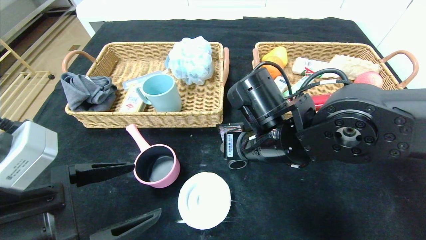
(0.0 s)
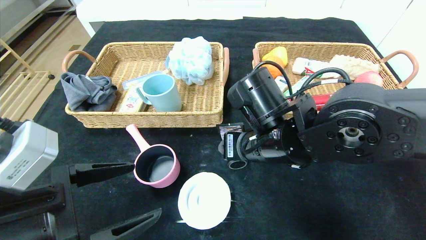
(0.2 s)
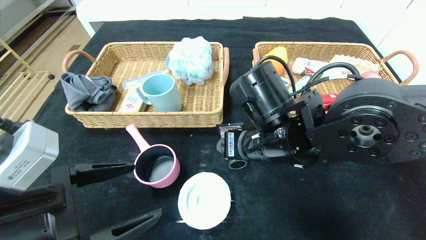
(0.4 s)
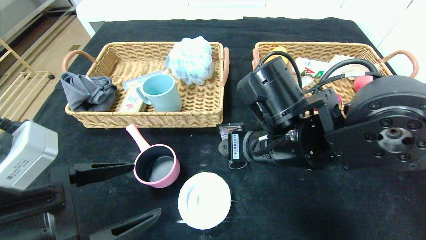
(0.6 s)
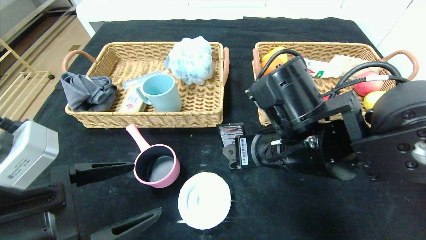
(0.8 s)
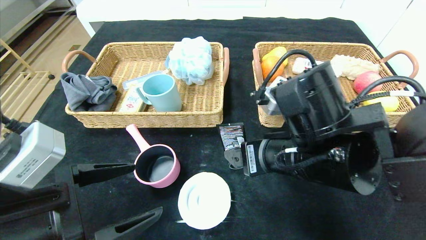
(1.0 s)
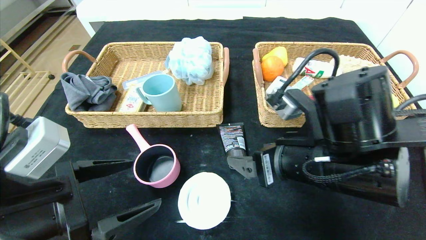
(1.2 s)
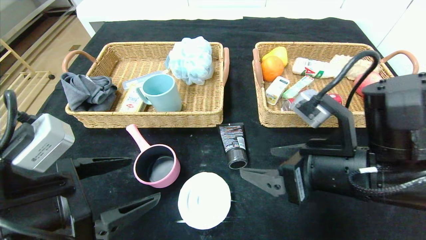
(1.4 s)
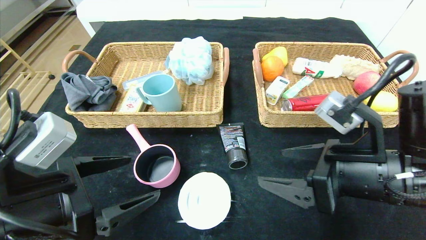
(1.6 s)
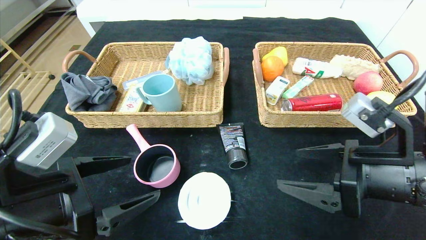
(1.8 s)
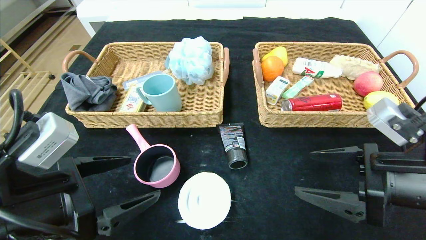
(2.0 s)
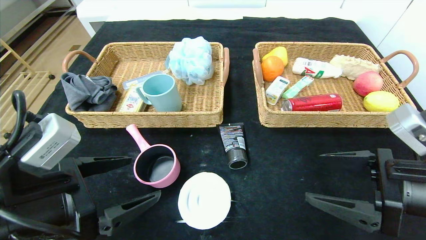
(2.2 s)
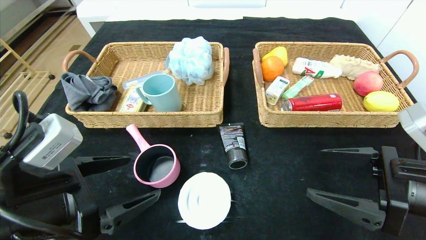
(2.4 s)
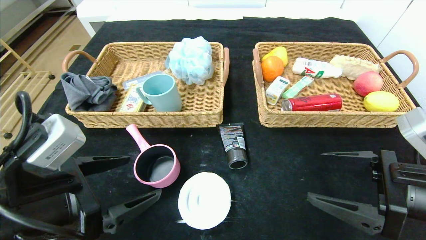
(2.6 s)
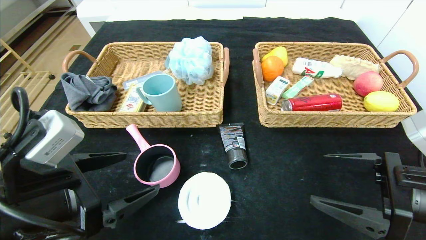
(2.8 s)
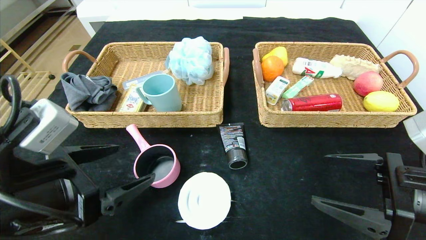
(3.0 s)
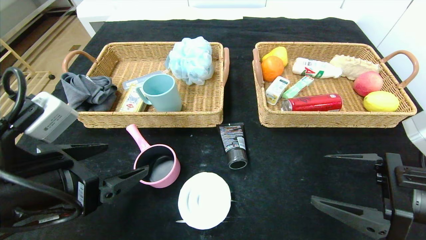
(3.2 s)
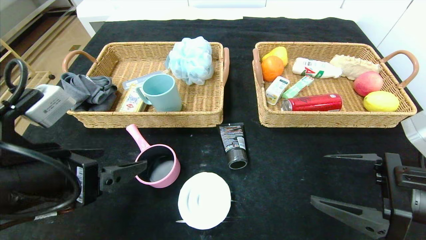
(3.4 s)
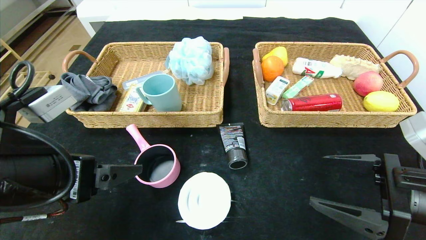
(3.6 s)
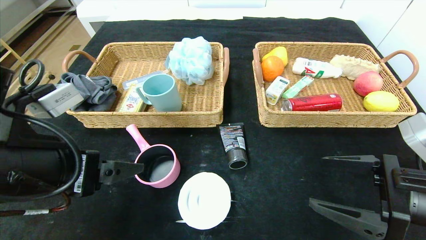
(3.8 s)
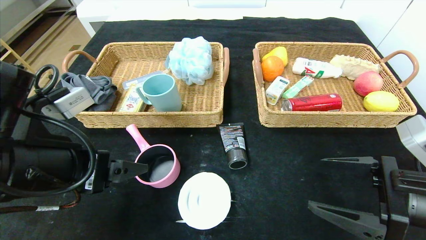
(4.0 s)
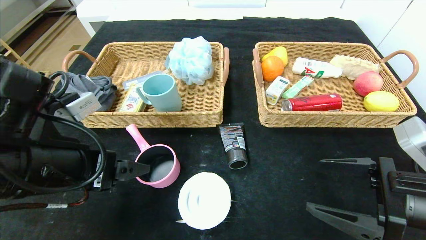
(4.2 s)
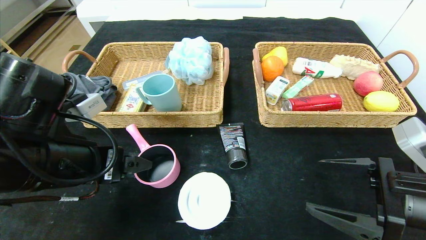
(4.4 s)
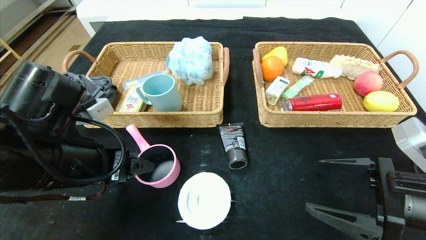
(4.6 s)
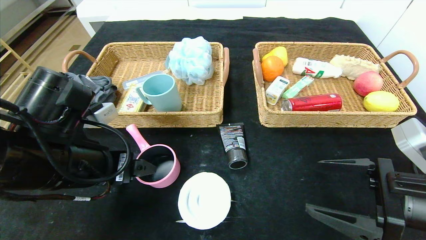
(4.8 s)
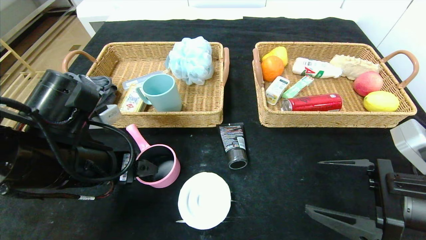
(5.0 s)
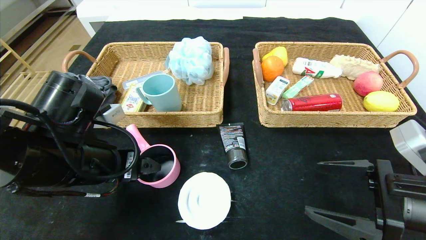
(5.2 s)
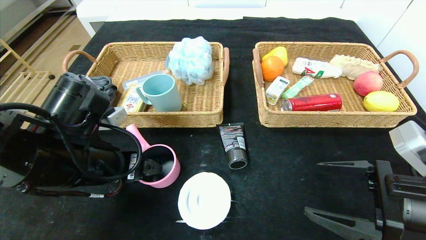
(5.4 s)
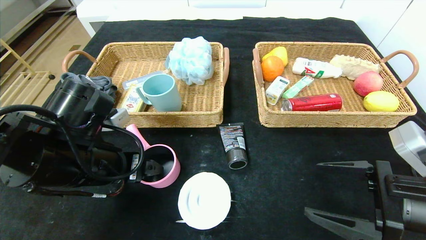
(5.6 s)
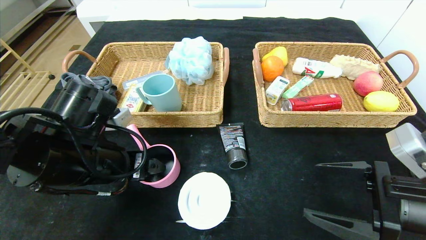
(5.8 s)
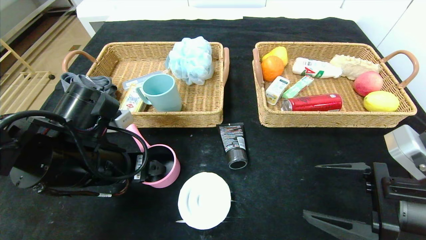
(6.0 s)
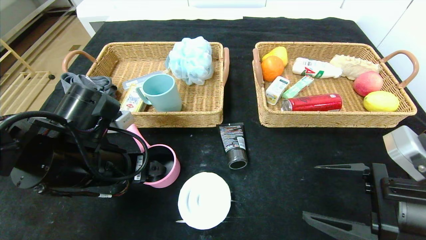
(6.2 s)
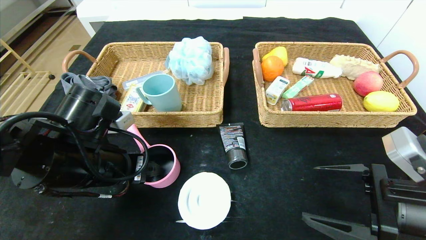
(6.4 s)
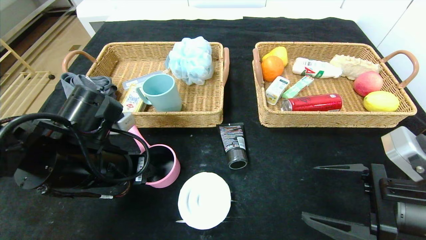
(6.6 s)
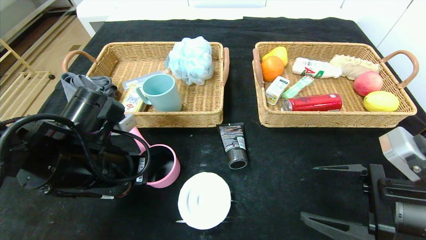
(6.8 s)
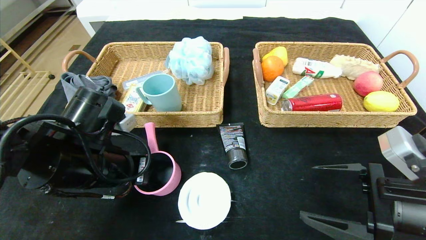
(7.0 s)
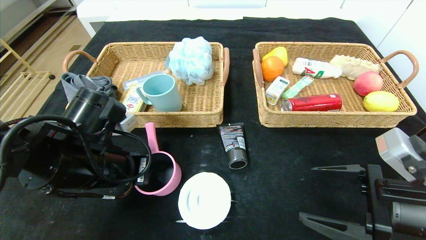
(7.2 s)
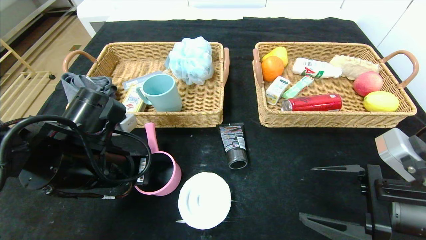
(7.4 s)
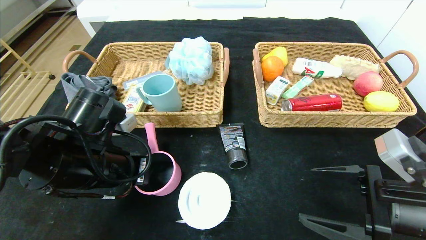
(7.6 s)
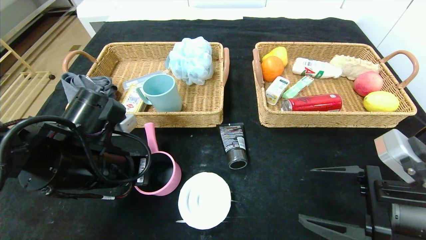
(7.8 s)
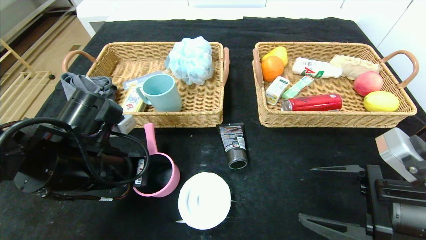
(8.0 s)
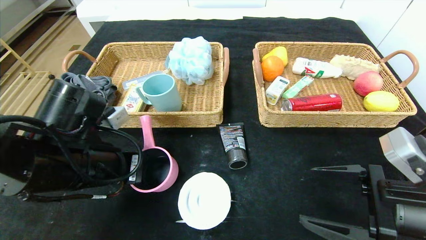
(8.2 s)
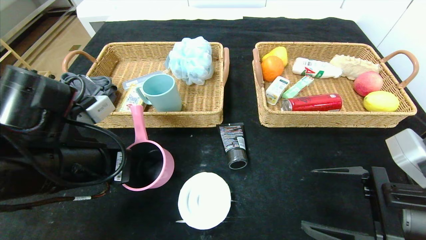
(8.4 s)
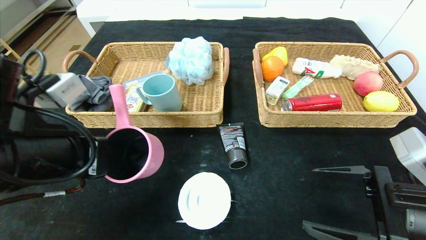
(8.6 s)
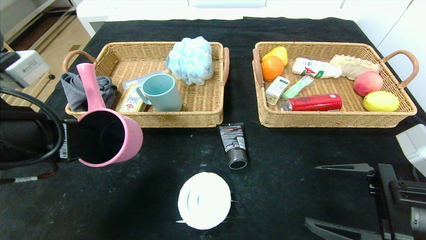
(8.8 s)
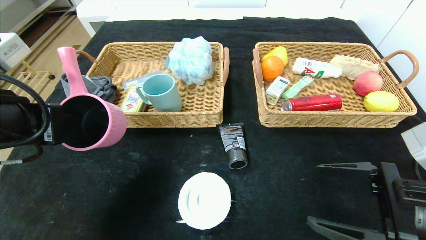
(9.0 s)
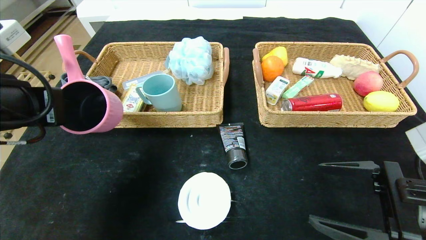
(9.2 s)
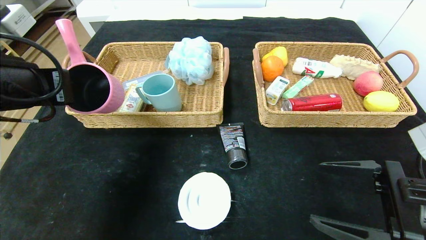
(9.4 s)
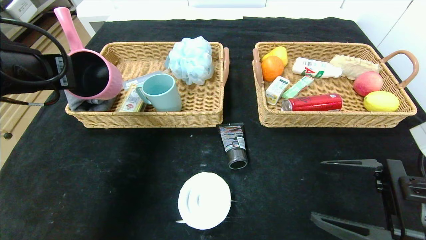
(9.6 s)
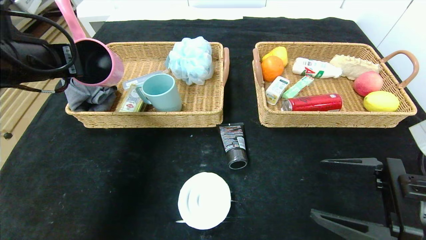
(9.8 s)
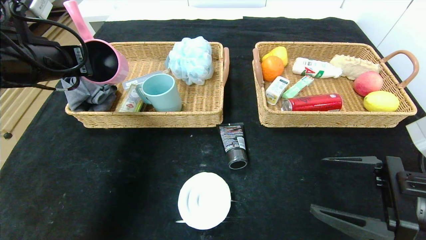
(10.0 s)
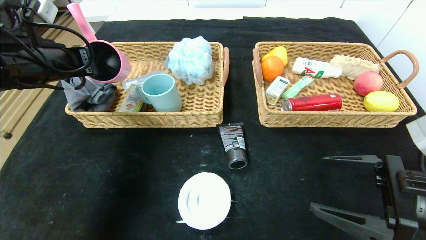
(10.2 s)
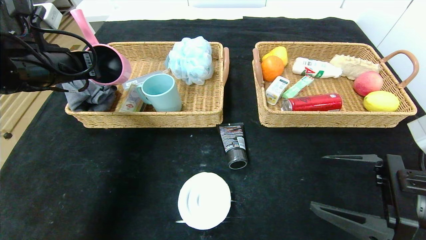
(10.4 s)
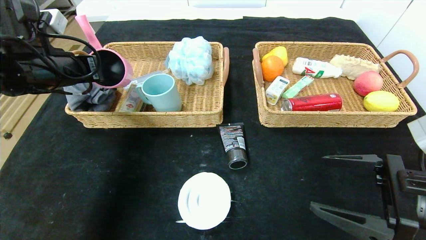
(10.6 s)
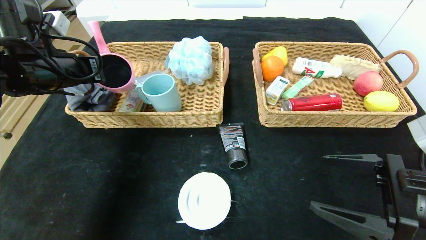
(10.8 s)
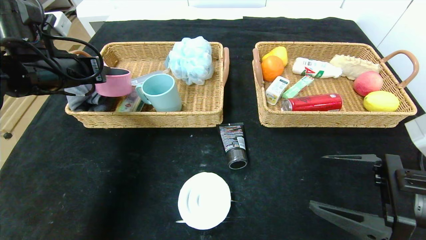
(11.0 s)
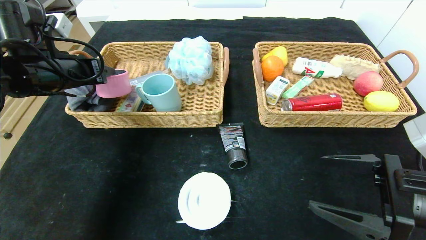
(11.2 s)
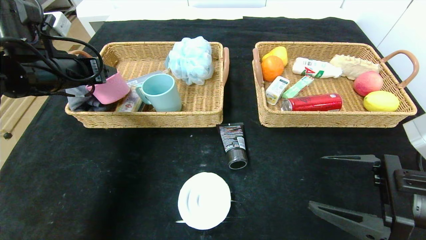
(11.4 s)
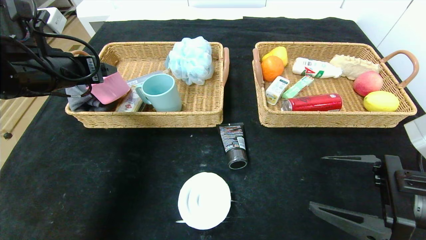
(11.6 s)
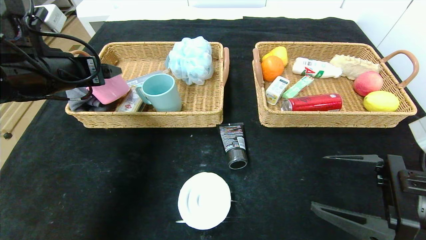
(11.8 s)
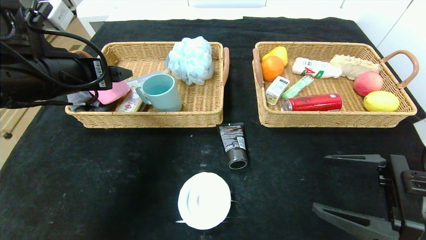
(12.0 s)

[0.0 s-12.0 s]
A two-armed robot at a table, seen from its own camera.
Step, 0.4 to 11.0 s: Grasp the pink pot and put it in the left basket.
0.0 to 1.6 s: The right gripper goes roughly 15 cm to the right and backward.
1.6 to 3.0 s: The right gripper goes roughly 5 cm to the right.
3.0 to 4.4 s: The left gripper changes place by about 5 cm.
4.4 to 6.0 s: The left gripper ends up roughly 5 cm from where it was.
6.0 to 7.6 s: The left gripper closes up.
7.6 to 9.0 s: The left gripper travels upward, to the left and backward by roughly 15 cm.
9.0 to 10.4 s: The left gripper goes about 15 cm forward.
10.4 to 12.0 s: The left gripper heads backward and to the right, covering about 10 cm, and opens up.

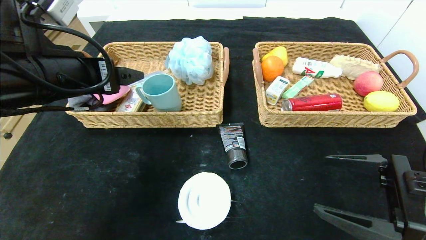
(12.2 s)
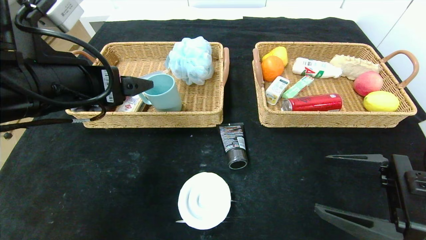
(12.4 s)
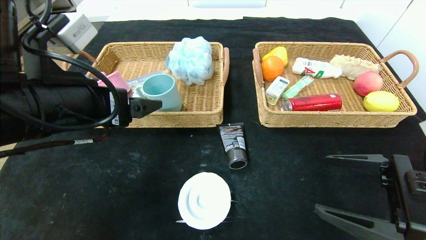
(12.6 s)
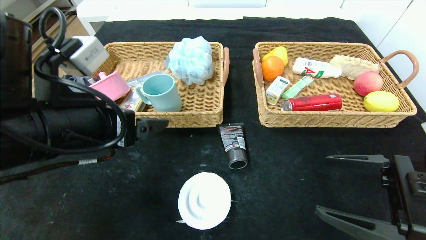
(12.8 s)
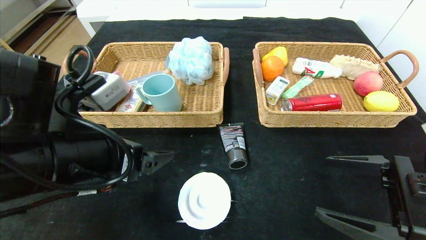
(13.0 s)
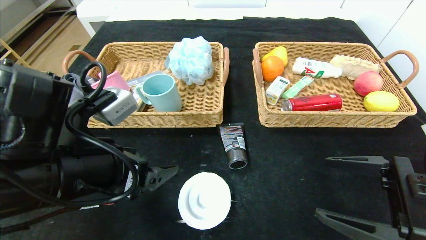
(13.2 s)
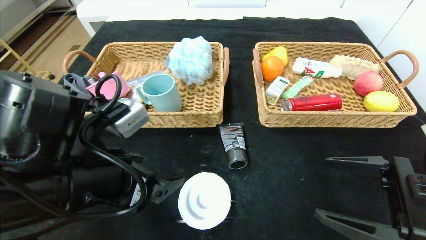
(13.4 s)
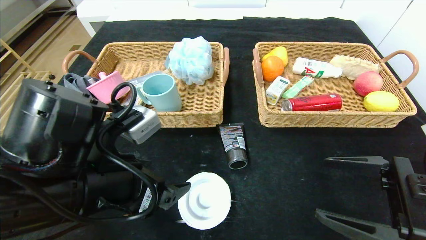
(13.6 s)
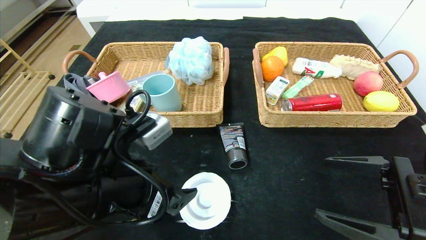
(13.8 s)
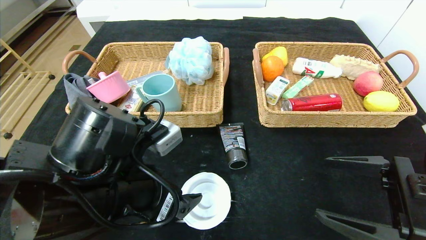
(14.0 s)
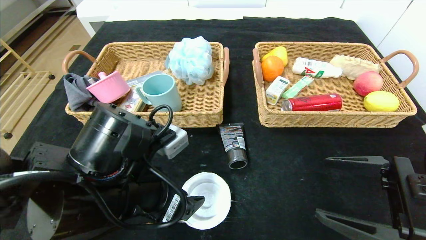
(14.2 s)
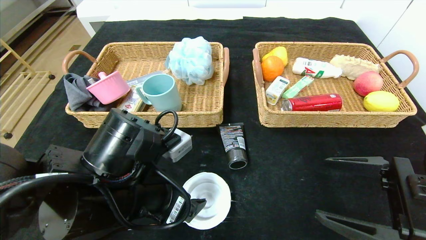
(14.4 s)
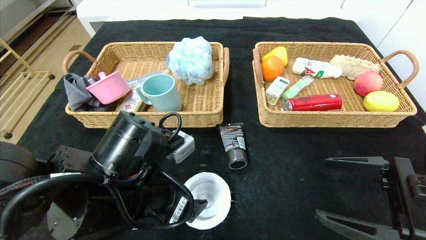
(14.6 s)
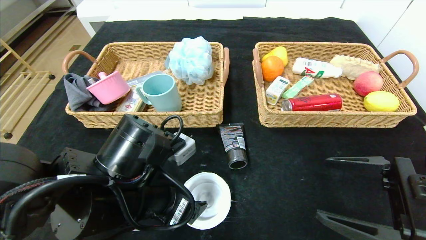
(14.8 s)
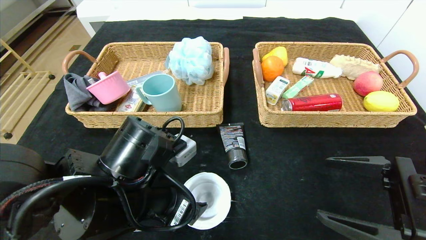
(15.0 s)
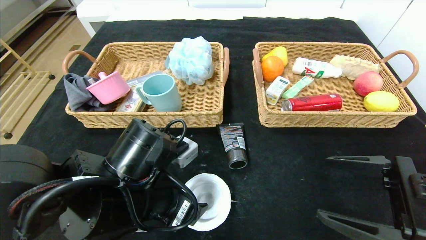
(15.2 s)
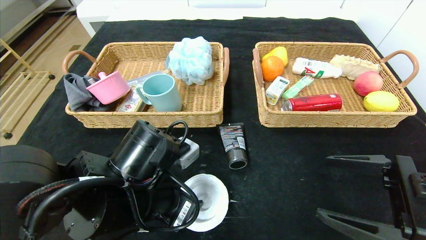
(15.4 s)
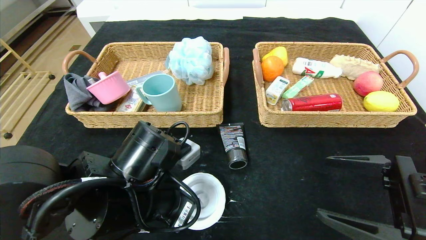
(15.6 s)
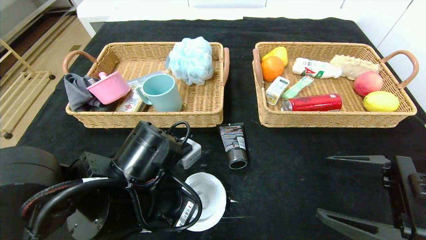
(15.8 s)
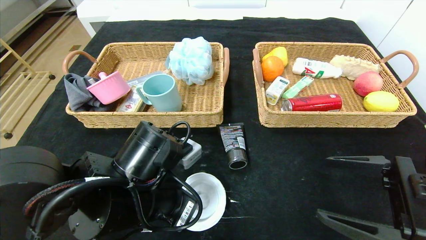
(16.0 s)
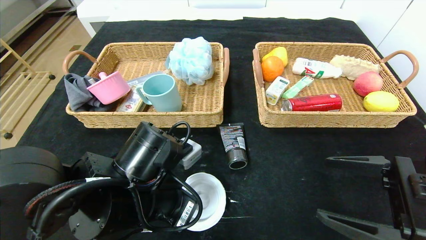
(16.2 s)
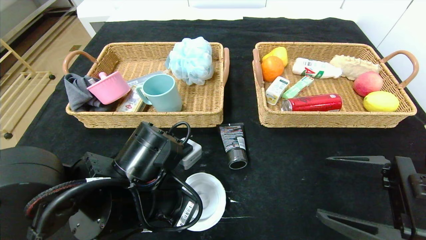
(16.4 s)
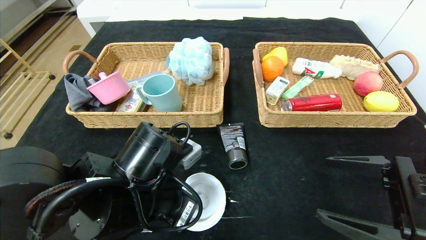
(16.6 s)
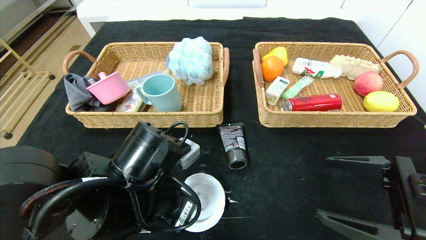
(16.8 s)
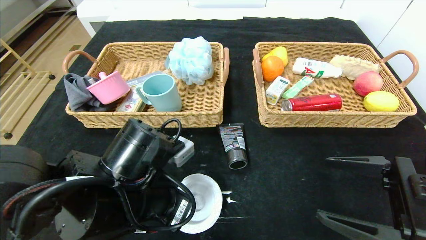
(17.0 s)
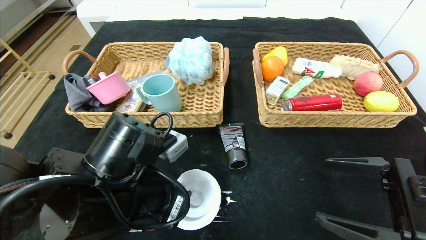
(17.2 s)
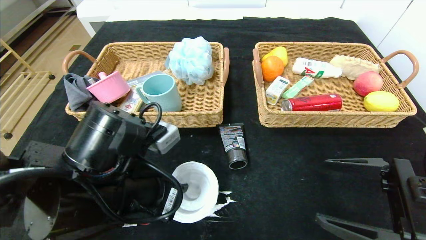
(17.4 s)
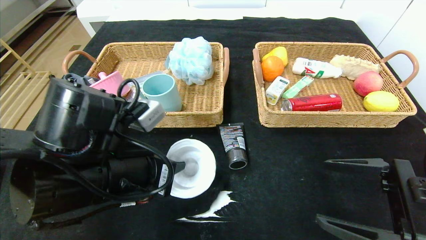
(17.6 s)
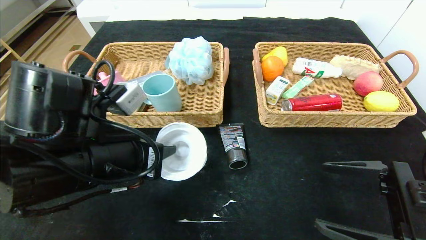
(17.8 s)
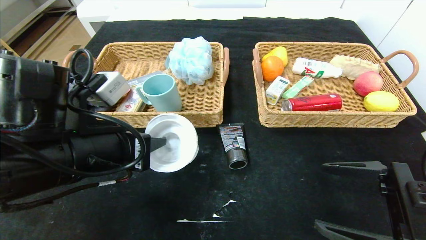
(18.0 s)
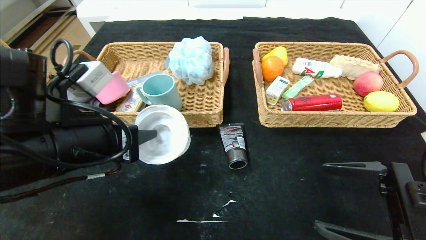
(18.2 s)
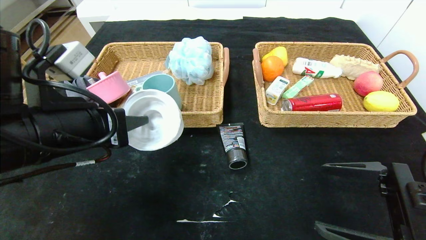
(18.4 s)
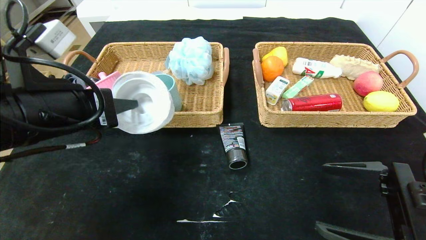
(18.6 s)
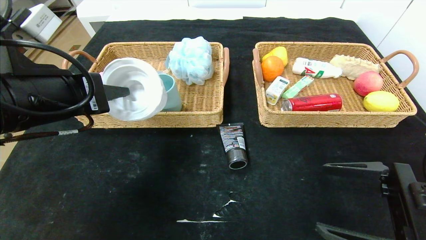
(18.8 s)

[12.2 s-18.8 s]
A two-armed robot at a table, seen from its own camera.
12.2 to 13.8 s: The left gripper moves downward, to the right and backward, about 15 cm.
13.8 to 15.4 s: The left gripper ends up roughly 5 cm from where it was.
15.4 to 17.2 s: The left gripper closes up.
17.2 to 18.8 s: The left gripper goes roughly 15 cm upward and to the left.
